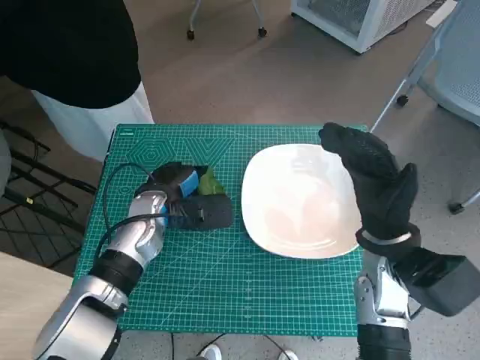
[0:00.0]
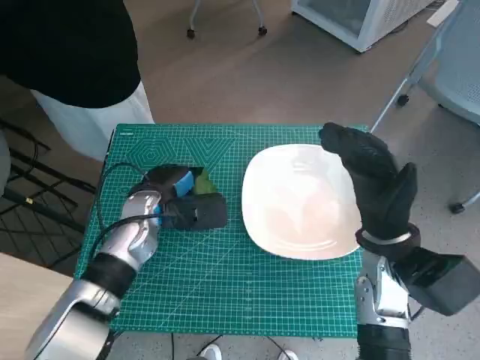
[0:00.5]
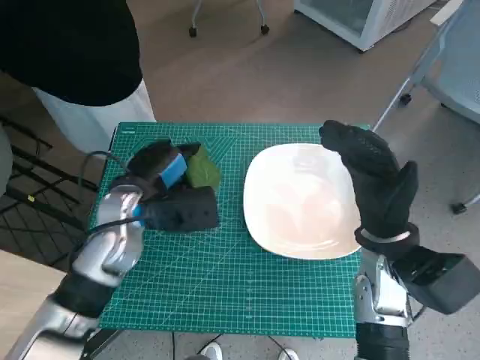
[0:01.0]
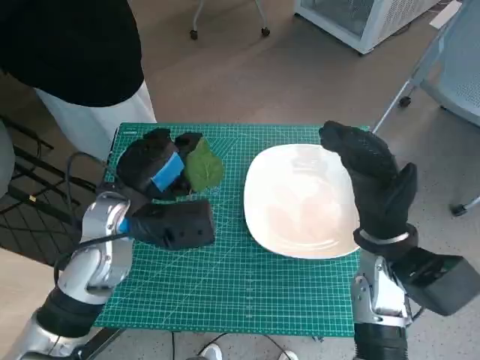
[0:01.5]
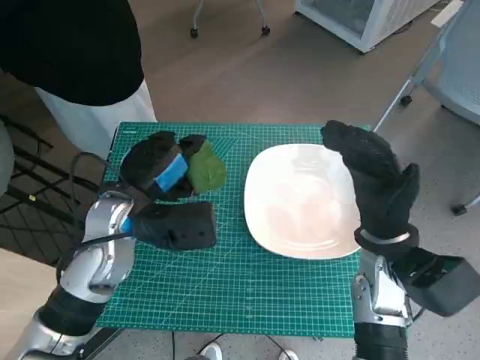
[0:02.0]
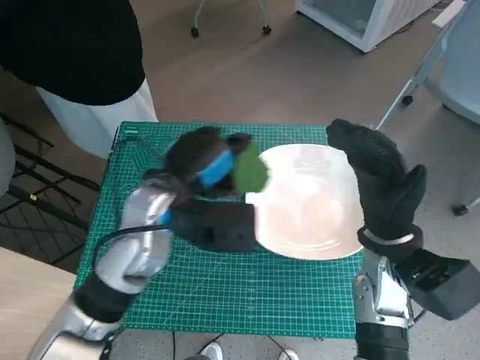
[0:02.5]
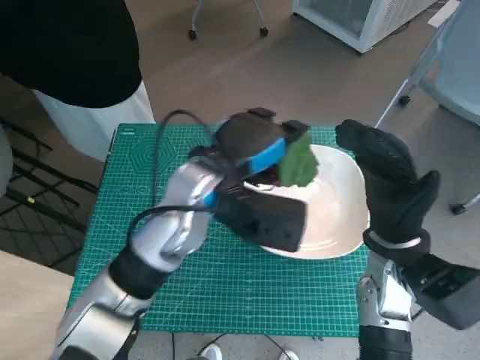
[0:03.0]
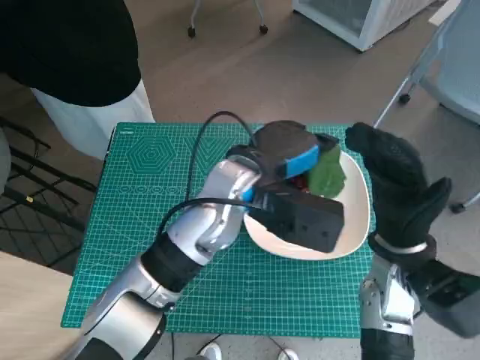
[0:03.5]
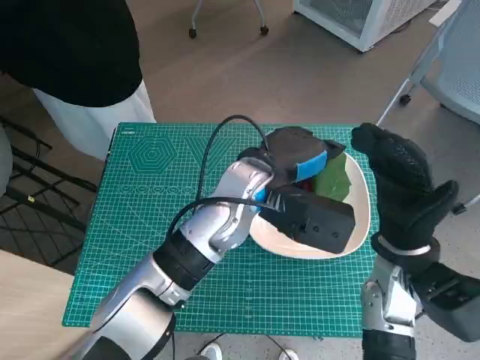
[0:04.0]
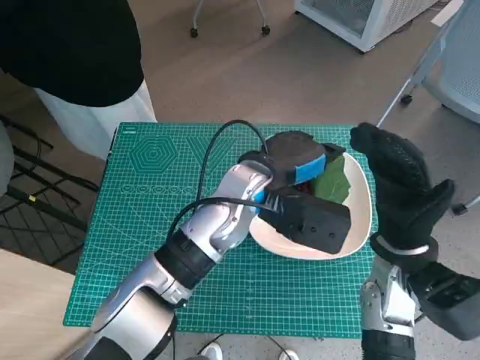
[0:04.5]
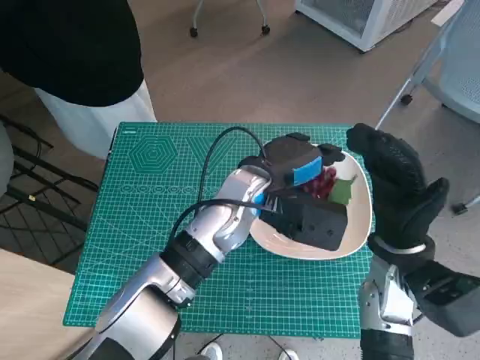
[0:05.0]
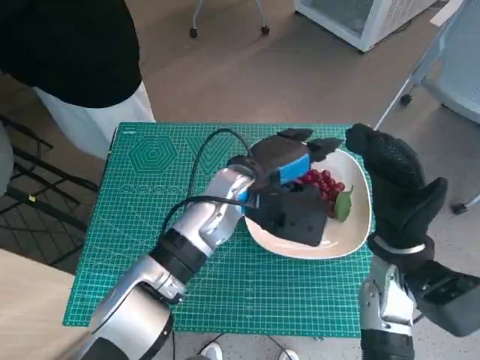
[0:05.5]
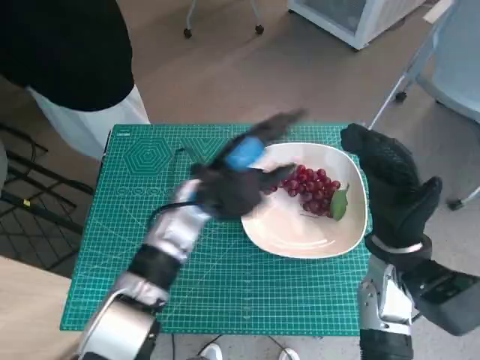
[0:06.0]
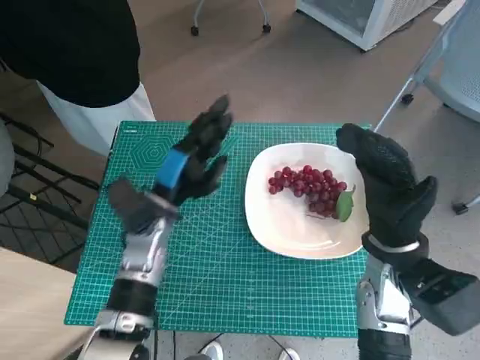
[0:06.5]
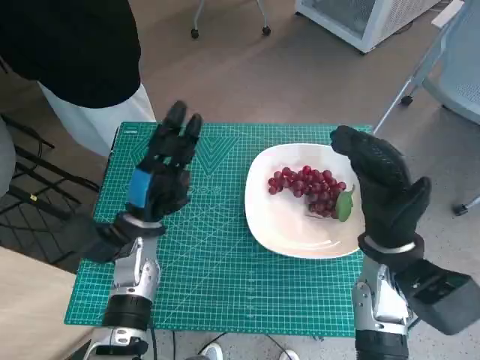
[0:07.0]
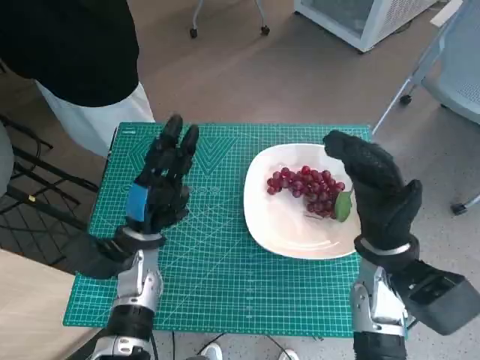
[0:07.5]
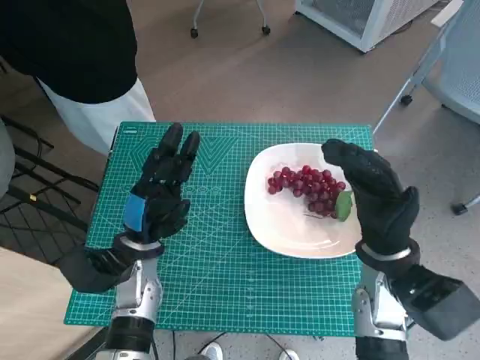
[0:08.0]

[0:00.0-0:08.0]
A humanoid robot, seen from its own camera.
Task of the whole recording: Pick up the grapes and put them on the plate.
Step, 0:00.0 to 0:05.0: Place the grapes in the plate with left hand.
0:00.0 to 0:02.0: The left hand moves upward and backward, roughly 10 cm.
0:02.0 to 0:04.0: The left hand moves to the right, approximately 15 cm.
0:04.0 to 0:06.0: The left hand heads to the left and downward, covering approximately 10 cm.
0:06.0 to 0:08.0: The left hand is displaced to the left, downward and backward by approximately 15 cm.

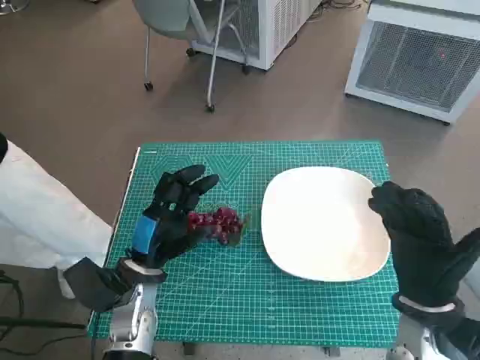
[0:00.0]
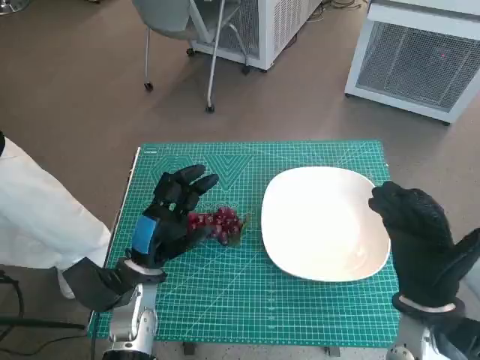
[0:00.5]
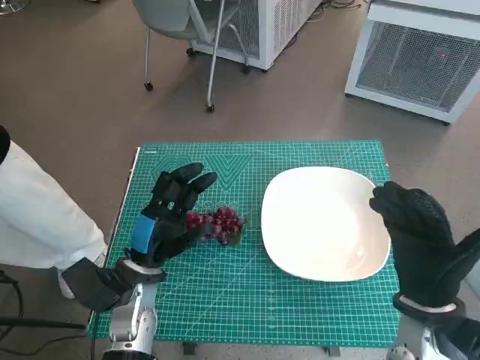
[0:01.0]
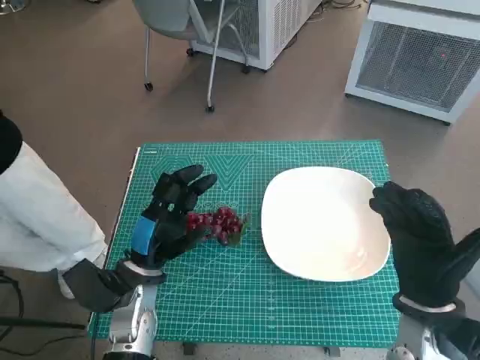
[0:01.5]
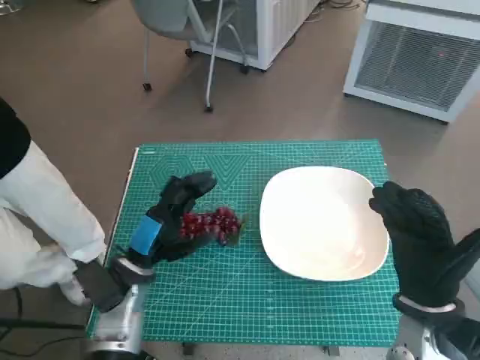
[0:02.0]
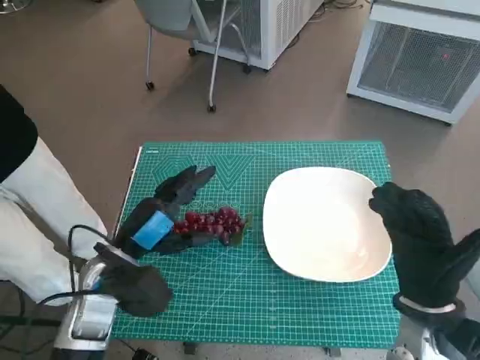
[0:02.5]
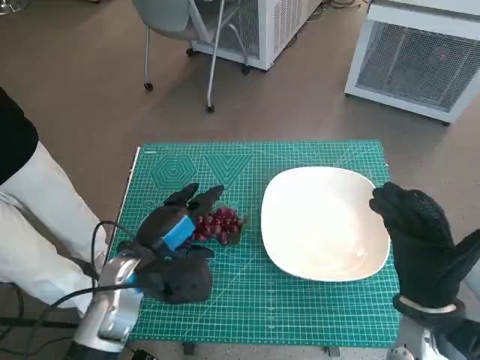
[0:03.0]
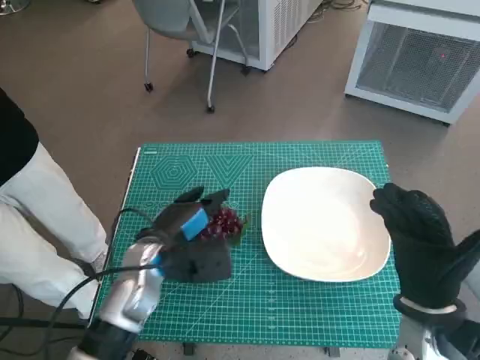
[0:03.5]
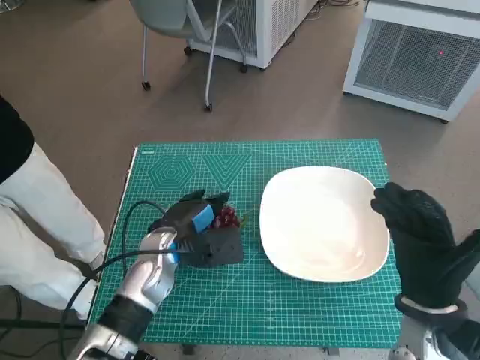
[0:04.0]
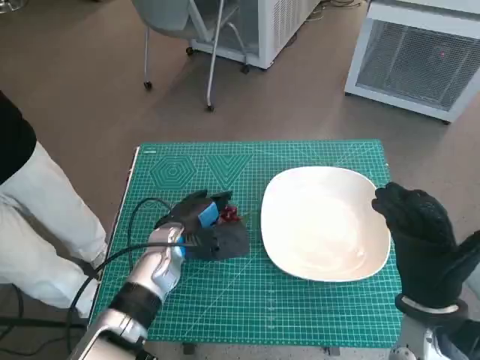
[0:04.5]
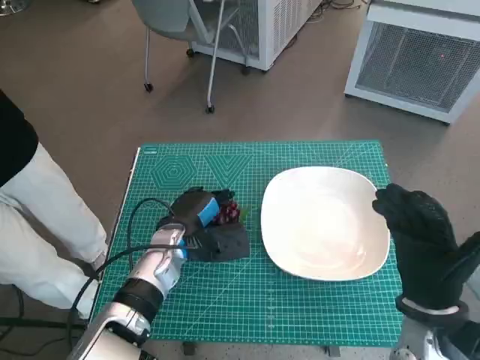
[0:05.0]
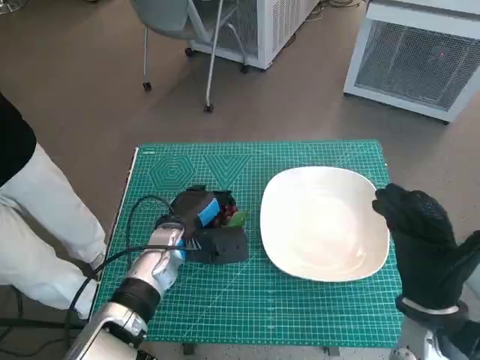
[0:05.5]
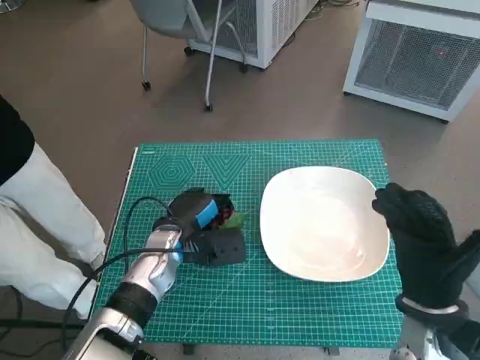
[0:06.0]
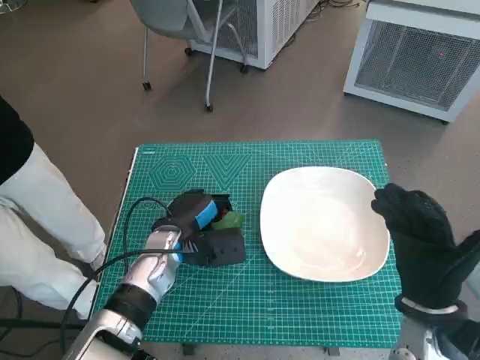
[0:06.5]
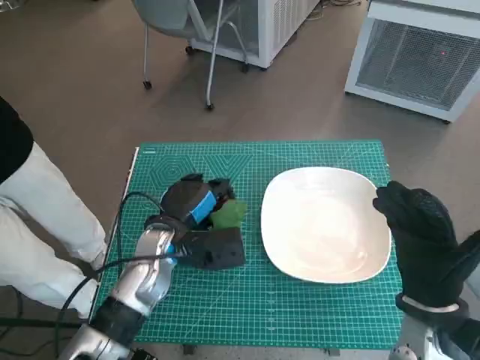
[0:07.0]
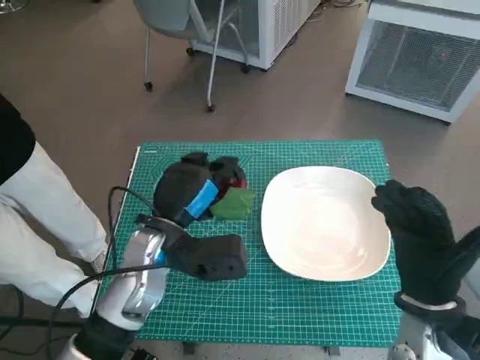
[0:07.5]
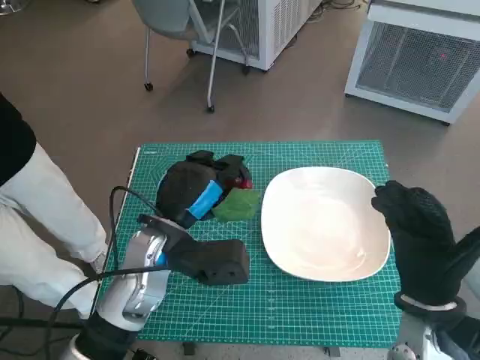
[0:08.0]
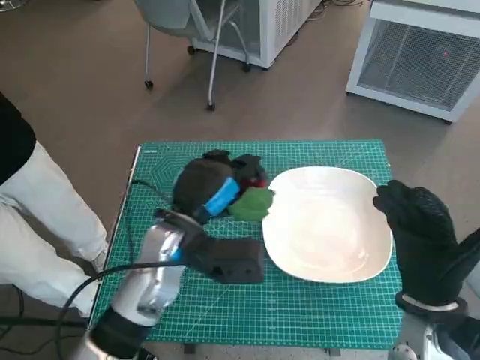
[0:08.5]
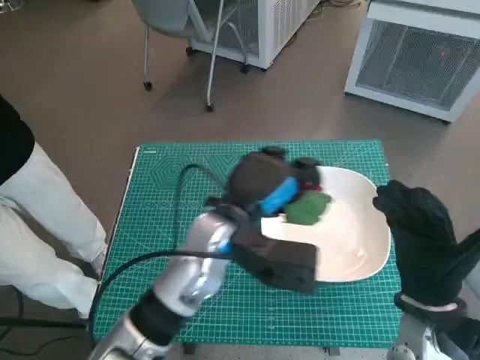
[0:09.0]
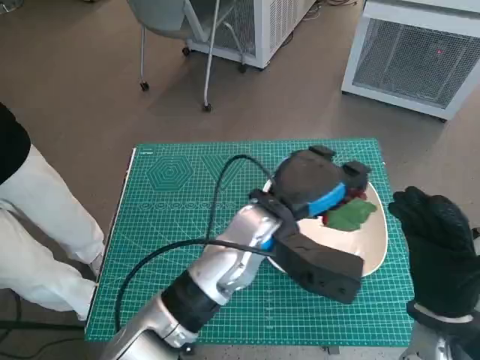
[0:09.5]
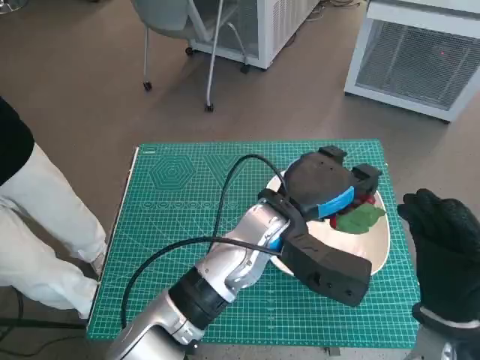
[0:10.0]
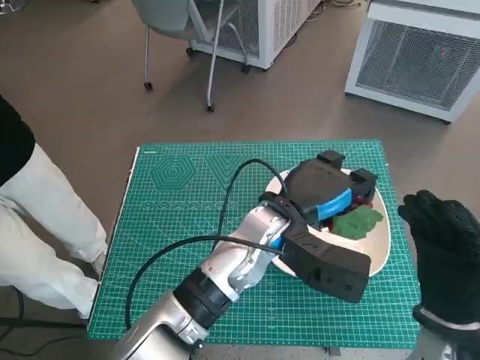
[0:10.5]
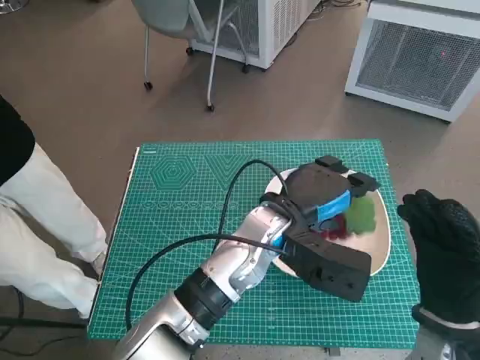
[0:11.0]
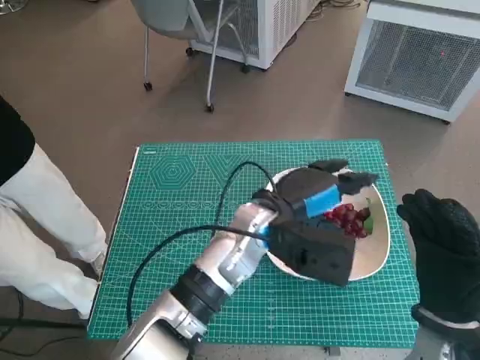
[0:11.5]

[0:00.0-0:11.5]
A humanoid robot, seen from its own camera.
Task of the whole recording: Pick up the grapes and put them on the plate.
Step, 0:00.0 to 0:06.0: Grasp the grapes with left hand.
0:02.0 to 0:04.0: The left hand is displaced forward by some 5 cm.
0:04.0 to 0:06.0: The hands make only small movements.
0:06.0 to 0:07.5: The left hand moves upward, roughly 5 cm.
0:07.5 to 0:09.5: The left hand goes roughly 15 cm to the right.

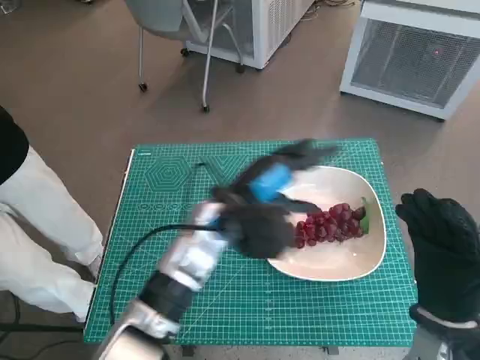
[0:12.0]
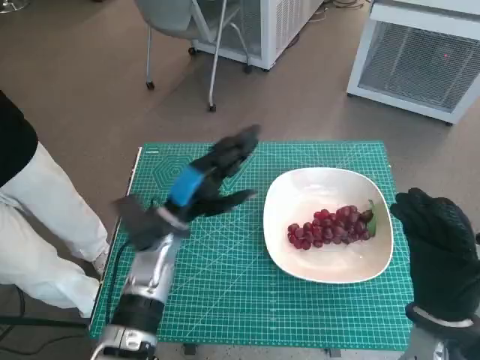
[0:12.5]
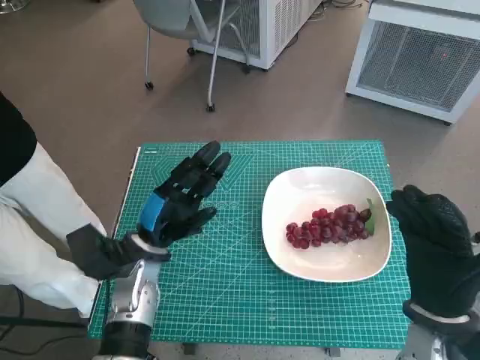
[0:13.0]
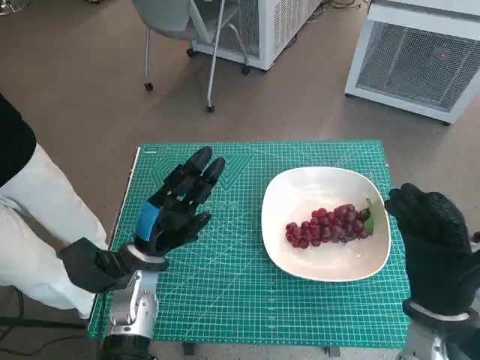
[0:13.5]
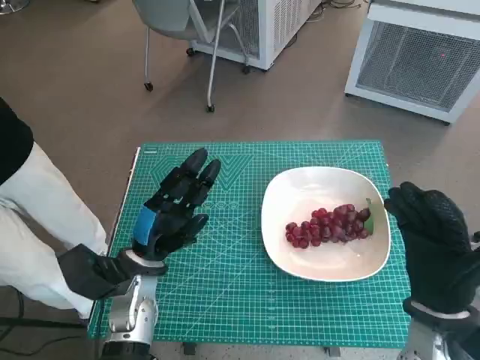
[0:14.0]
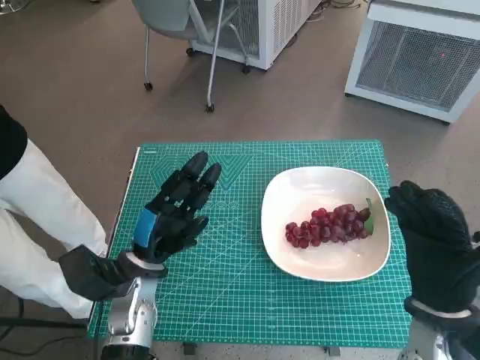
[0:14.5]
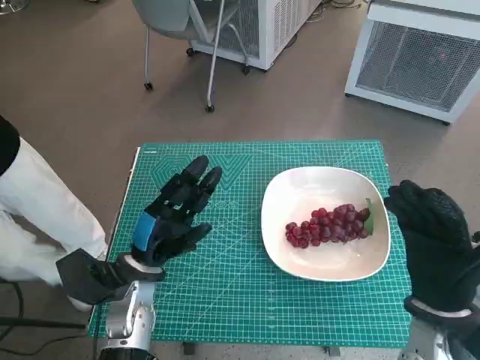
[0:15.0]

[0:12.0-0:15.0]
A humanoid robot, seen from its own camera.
Task of the whole recording: Pick up the grapes and put them on the plate.
0:12.0 to 0:13.5: The left hand is displaced to the left and downward by roughly 15 cm.
0:13.5 to 0:15.0: The hands stay close to where they were, moving slightly.

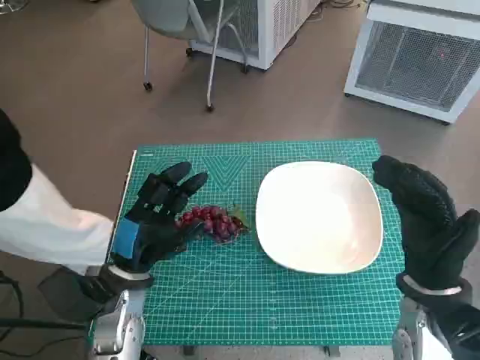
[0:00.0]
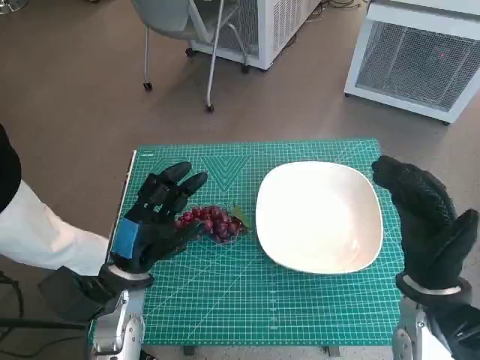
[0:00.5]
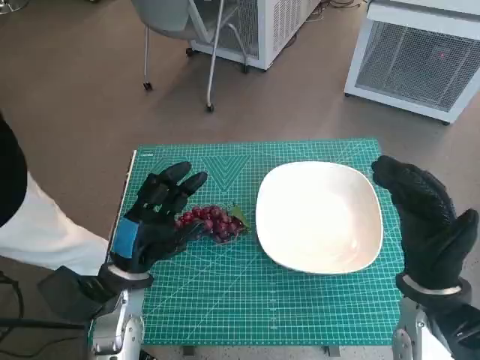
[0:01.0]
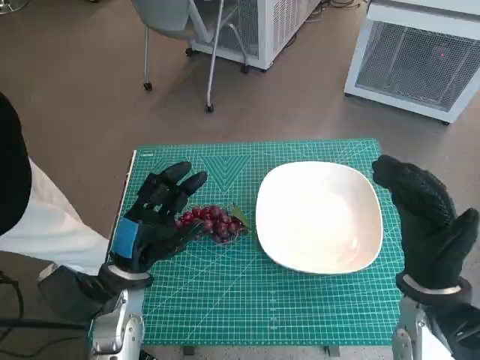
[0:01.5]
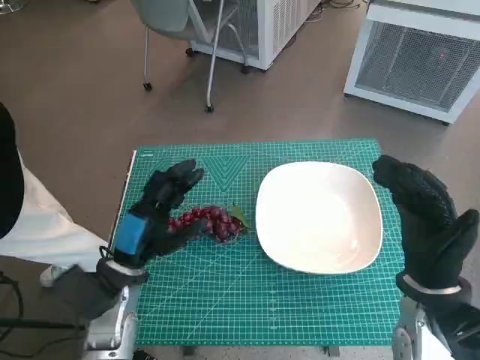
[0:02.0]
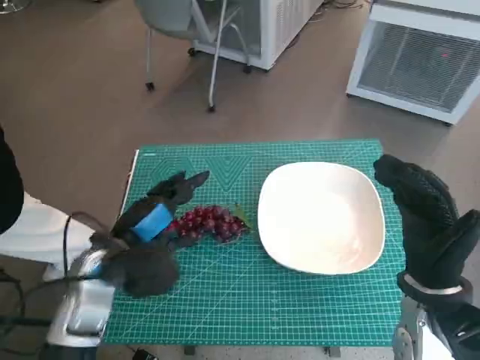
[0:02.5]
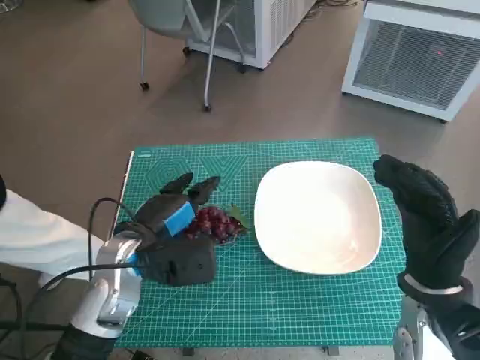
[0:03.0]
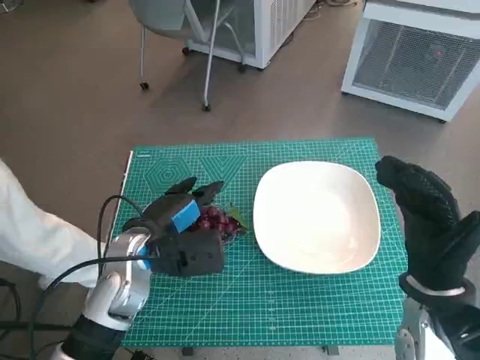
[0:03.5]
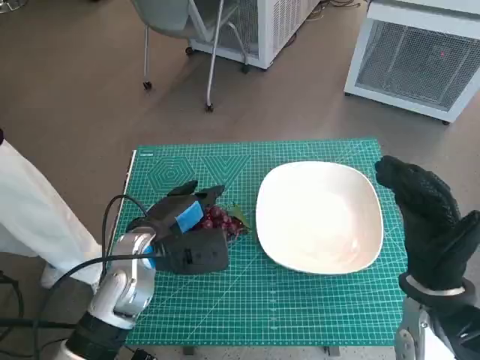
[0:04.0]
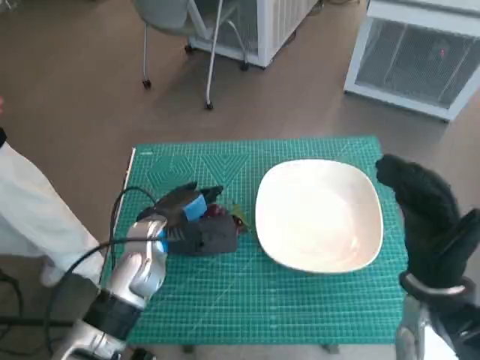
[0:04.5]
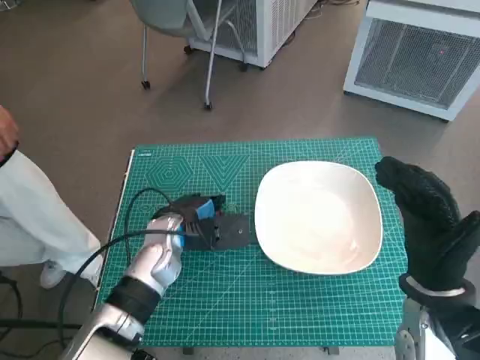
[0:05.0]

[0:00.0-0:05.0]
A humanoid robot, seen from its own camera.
Task of the whole recording: Pick up the grapes and put them on the plate.
0:02.5 to 0:05.0: The left hand is displaced forward and to the right by some 10 cm.
